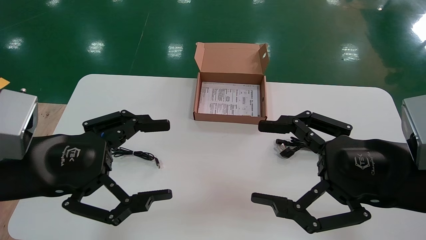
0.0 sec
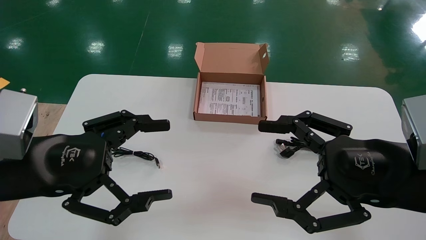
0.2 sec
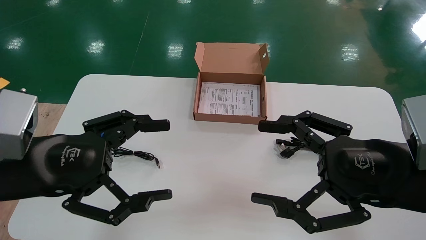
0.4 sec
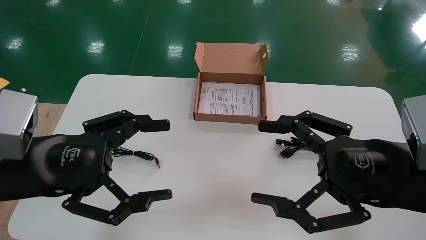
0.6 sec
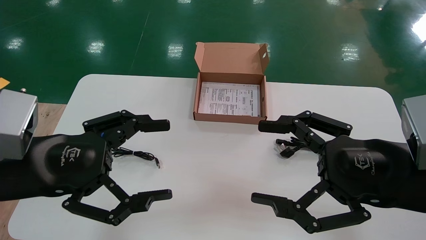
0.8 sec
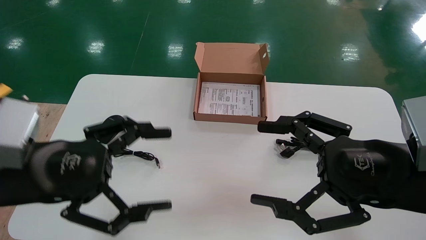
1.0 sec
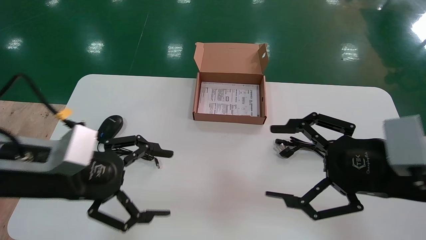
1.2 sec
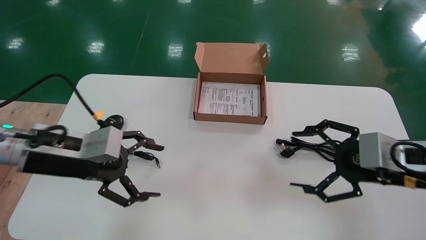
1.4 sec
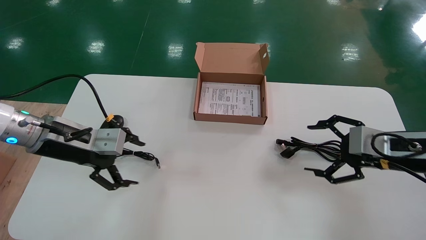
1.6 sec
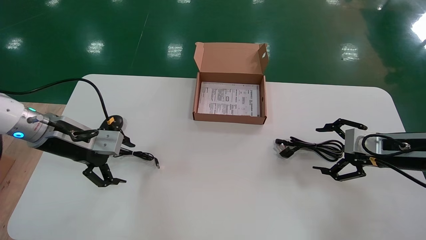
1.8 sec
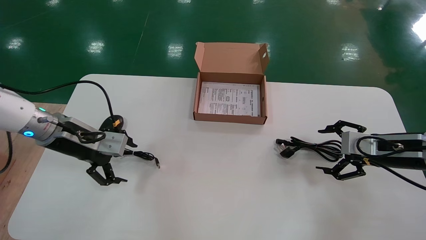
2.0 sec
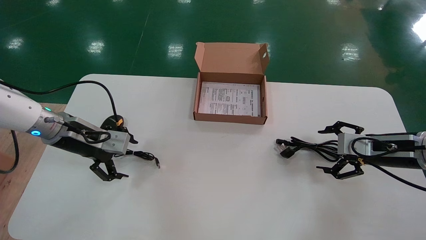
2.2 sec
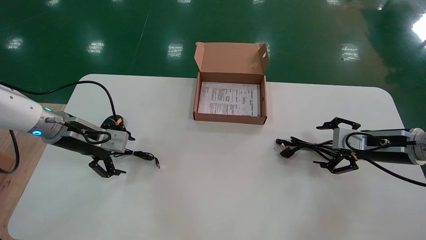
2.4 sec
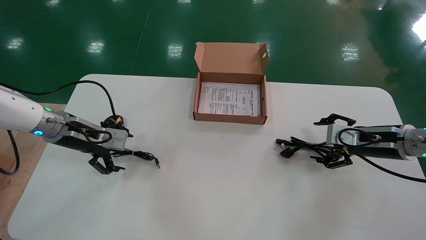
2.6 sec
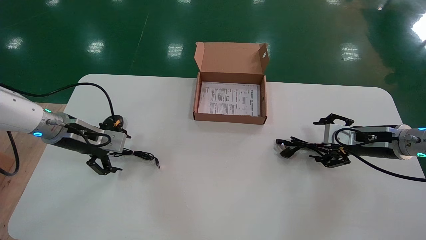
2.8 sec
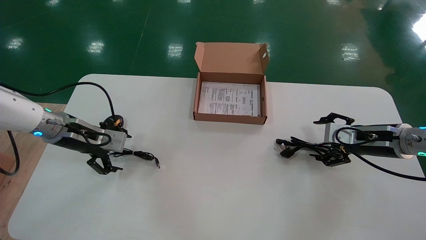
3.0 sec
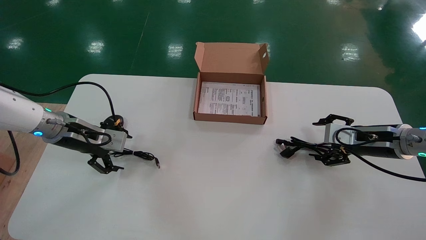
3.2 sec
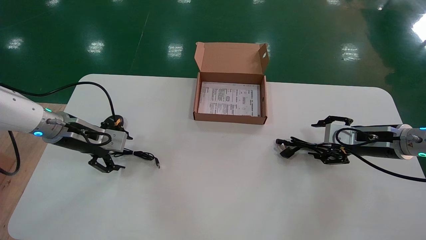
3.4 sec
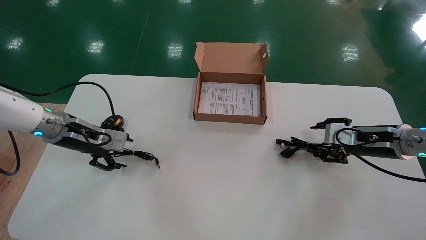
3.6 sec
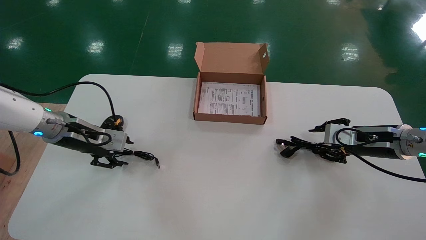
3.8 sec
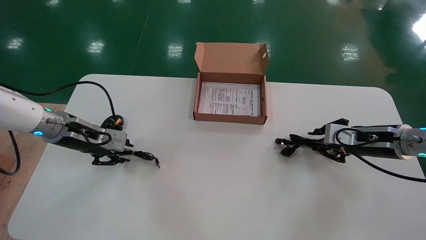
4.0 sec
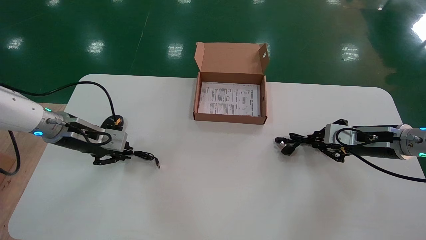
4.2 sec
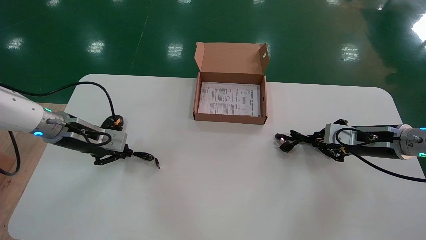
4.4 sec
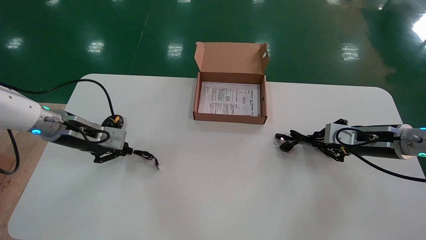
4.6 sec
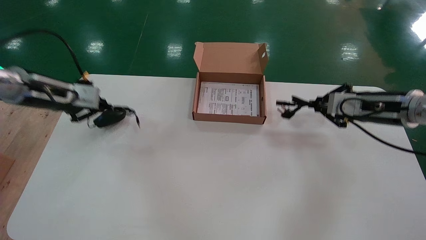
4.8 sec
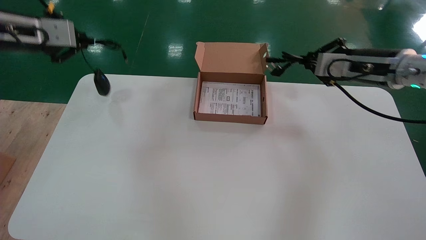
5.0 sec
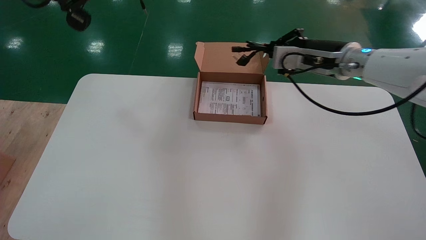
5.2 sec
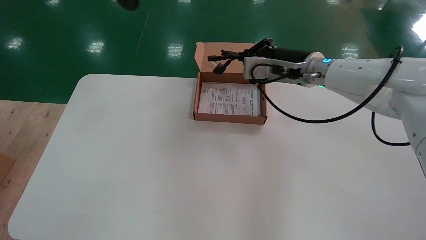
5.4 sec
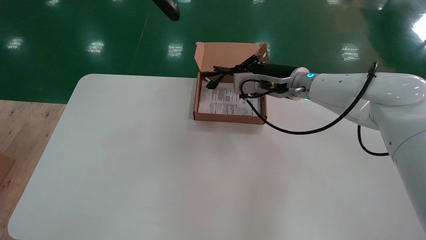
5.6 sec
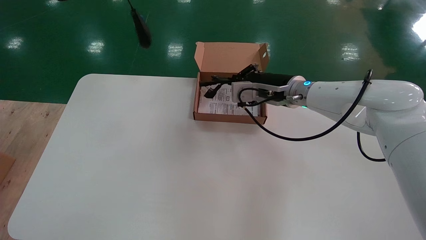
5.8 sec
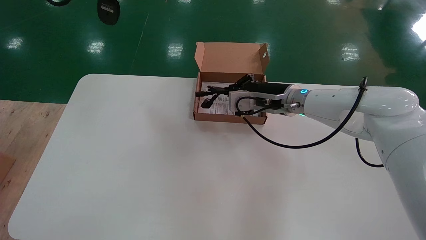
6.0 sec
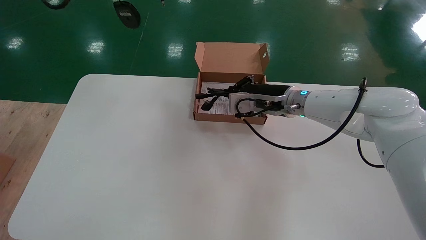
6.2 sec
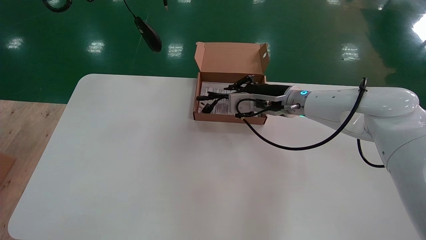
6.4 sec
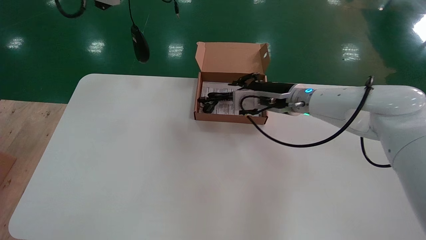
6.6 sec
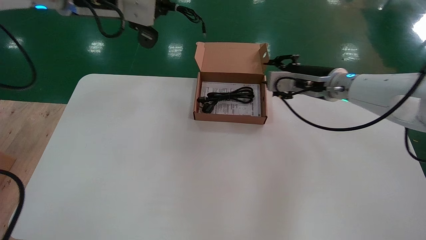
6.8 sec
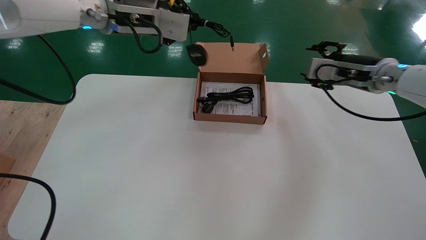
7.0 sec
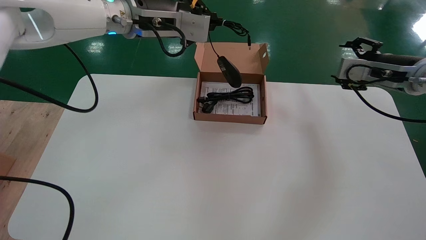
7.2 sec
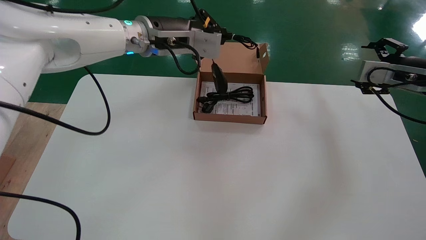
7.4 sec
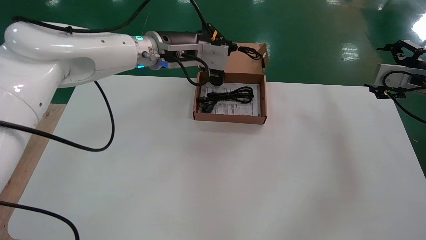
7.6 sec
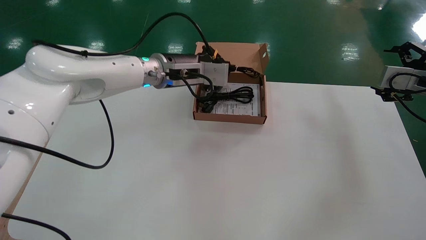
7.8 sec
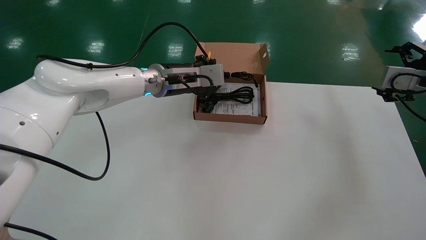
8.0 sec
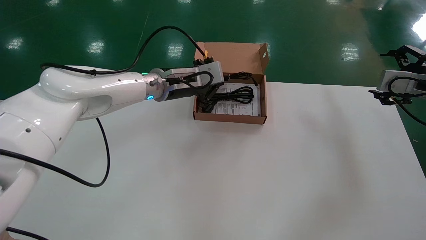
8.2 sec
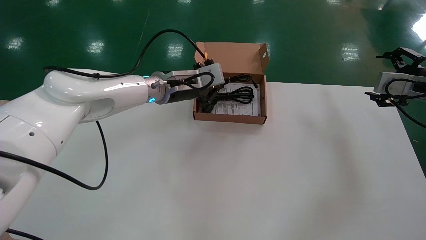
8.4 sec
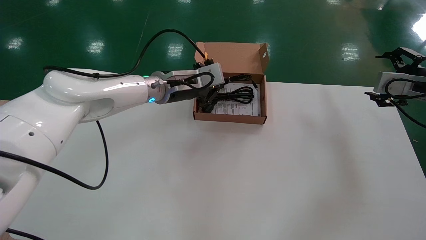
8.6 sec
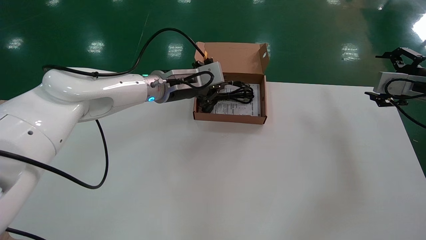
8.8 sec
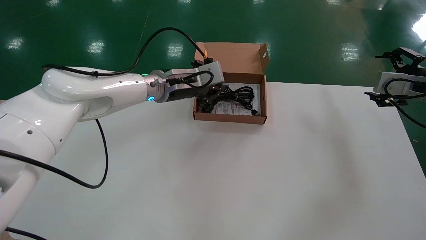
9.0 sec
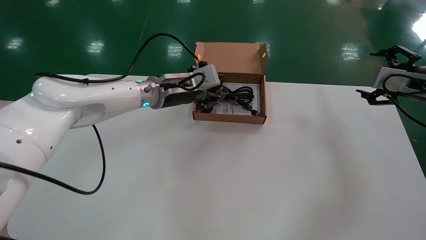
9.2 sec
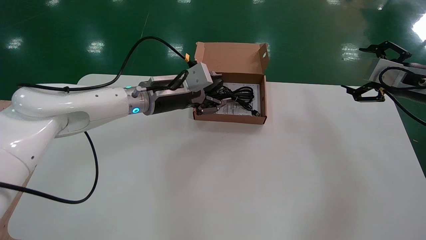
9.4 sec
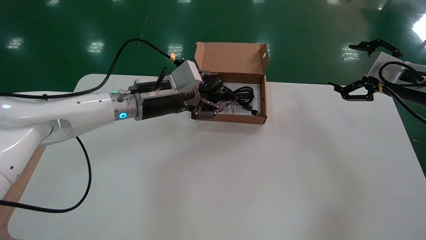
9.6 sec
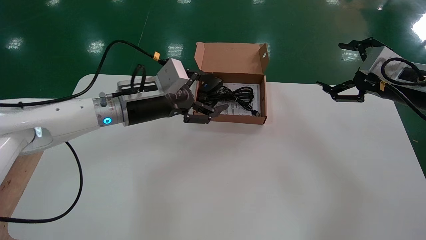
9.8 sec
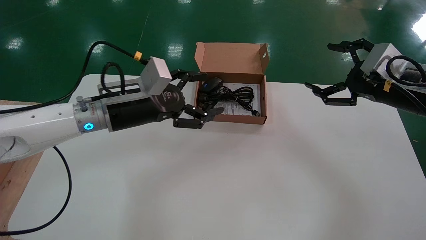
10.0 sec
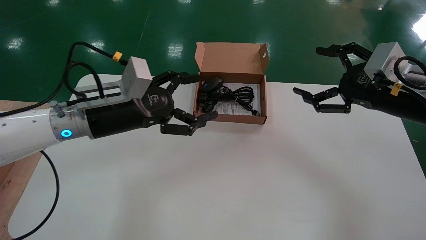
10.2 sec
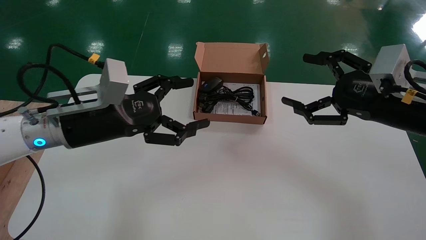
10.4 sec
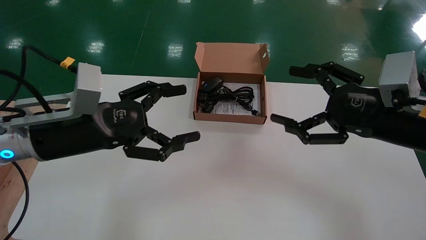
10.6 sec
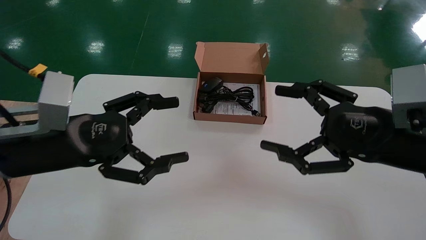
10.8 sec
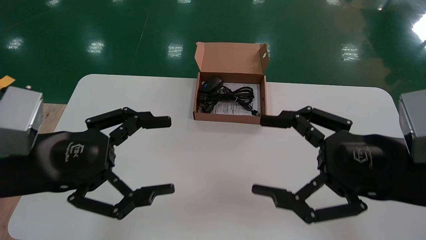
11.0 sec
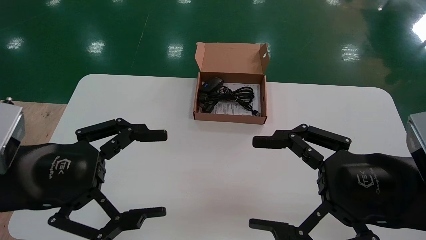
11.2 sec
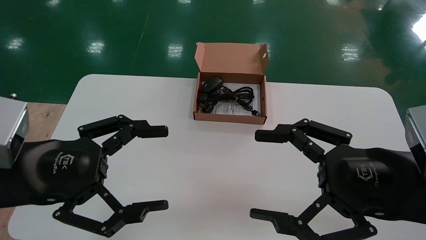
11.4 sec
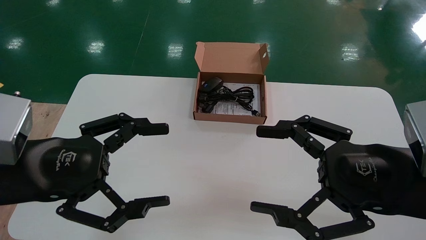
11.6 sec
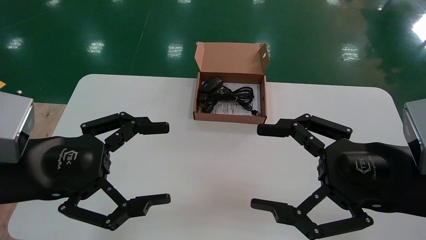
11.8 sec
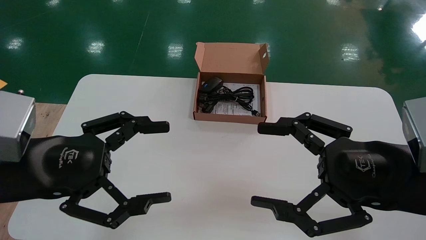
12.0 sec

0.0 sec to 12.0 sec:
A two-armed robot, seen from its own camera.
Step, 1.4 sec to 4.4 sec: Simultaneously pick up the mouse and power cord from the accessory packaging area.
Step, 4.6 sec to 9.2 sec: Place the mouse and power cord into the box.
0.0 sec to 1.6 sec: The right gripper shifts roughly 15 cm forward and to the right; the left gripper shifts roughly 15 cm forward.
1.6 sec to 3.0 sec: The two grippers go approximately 10 cm forward.
3.0 sec to 4.4 sec: The right gripper closes. The left gripper closes up.
4.4 sec to 6.0 sec: The left gripper moves upward, about 30 cm. Meanwhile the right gripper travels to the left by about 20 cm.
6.0 sec to 7.6 sec: The right gripper heads to the right, covering approximately 30 cm, and opens its fingers. Meanwhile the left gripper goes about 25 cm to the right, downward and forward.
7.6 sec to 9.0 sec: The left gripper heads downward, covering roughly 10 cm.
9.0 sec to 10.4 sec: The left gripper shifts approximately 20 cm backward and to the left, and opens up. The right gripper is displaced to the left and backward by roughly 15 cm.
10.4 sec to 12.0 sec: The right gripper goes some 15 cm backward and to the left, while the left gripper heads backward, covering approximately 10 cm.

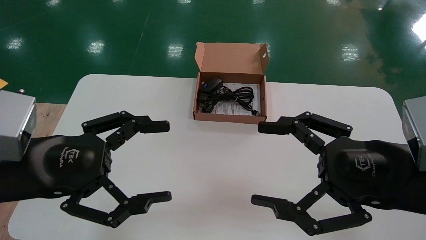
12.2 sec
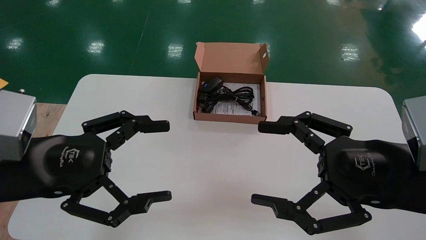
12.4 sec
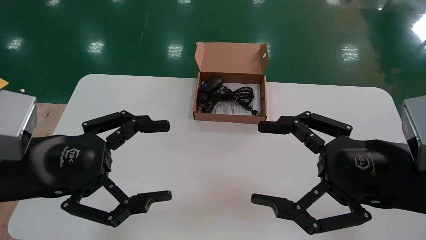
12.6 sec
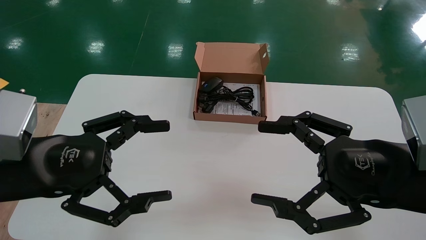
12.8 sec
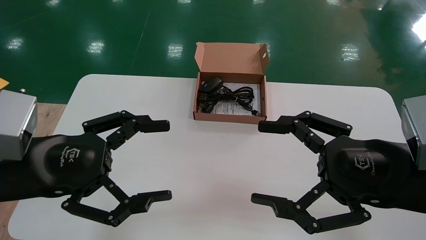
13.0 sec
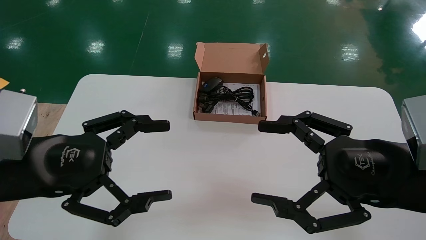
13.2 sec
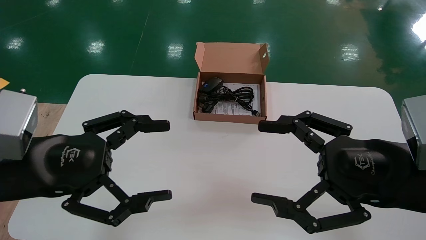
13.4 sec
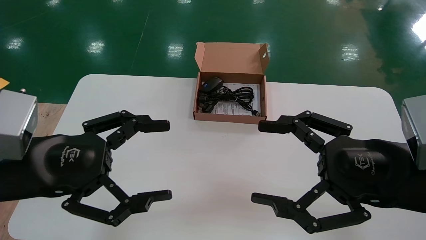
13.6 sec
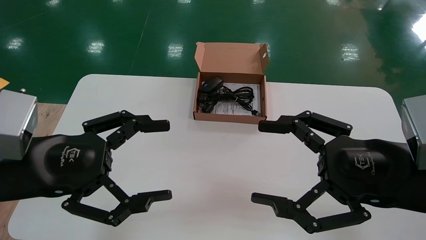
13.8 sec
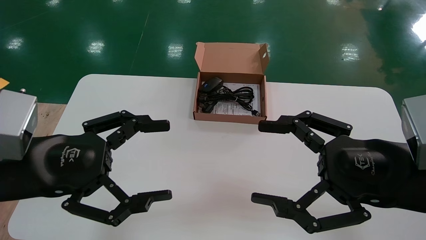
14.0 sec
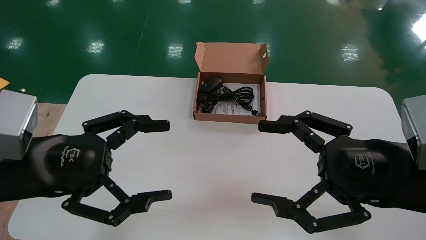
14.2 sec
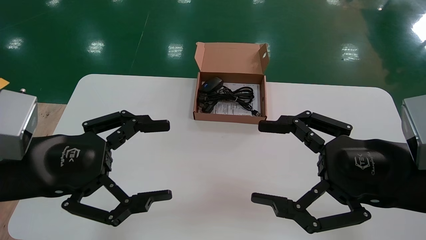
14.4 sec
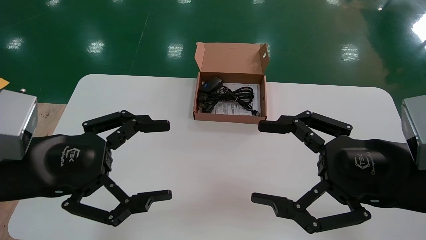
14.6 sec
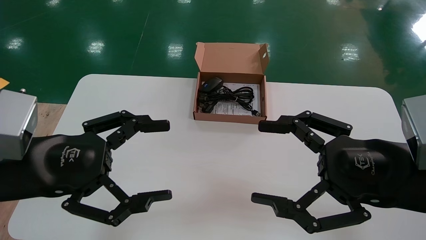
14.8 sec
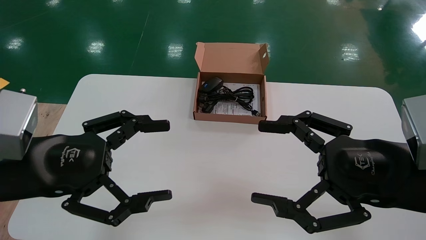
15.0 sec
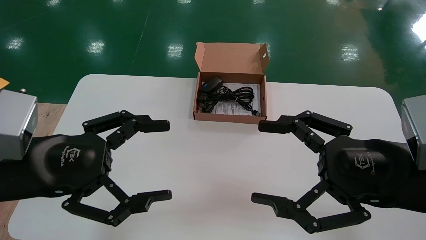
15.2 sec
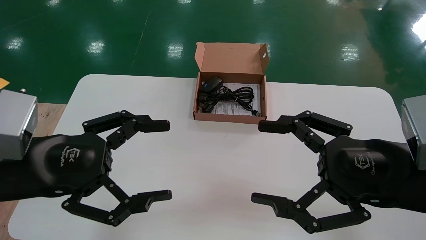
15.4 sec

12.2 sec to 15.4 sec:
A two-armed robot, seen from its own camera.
12.2 sec to 15.4 sec: Both grippers stay put.
